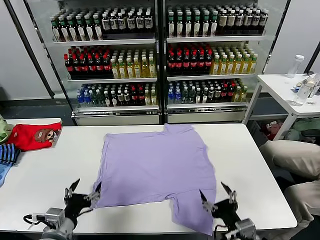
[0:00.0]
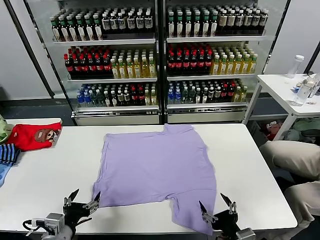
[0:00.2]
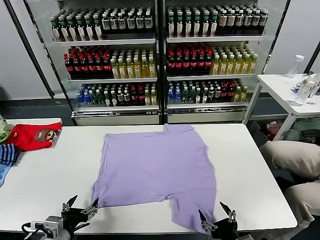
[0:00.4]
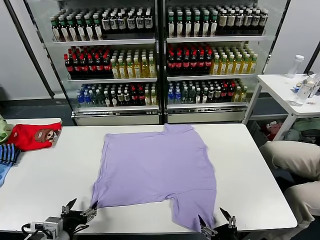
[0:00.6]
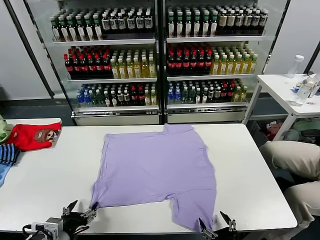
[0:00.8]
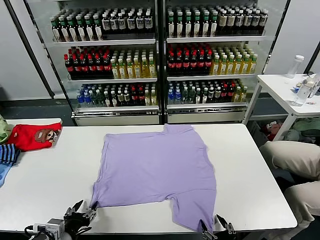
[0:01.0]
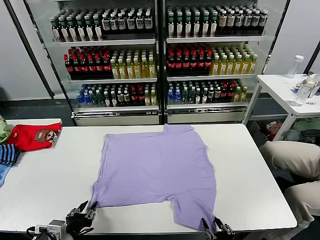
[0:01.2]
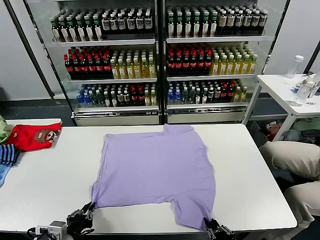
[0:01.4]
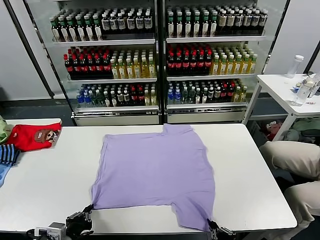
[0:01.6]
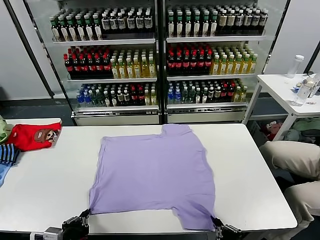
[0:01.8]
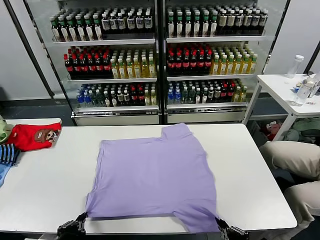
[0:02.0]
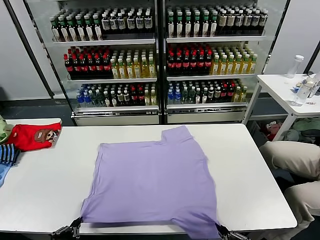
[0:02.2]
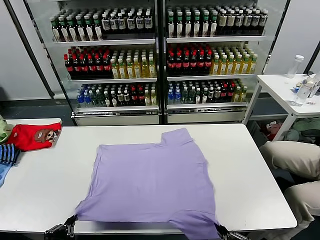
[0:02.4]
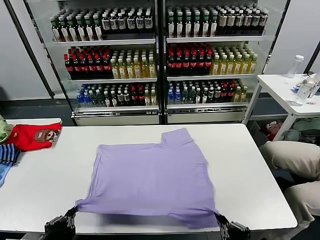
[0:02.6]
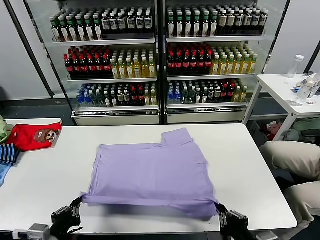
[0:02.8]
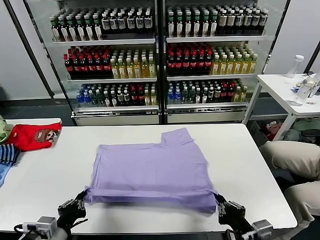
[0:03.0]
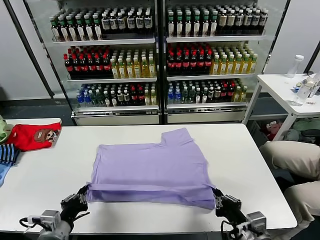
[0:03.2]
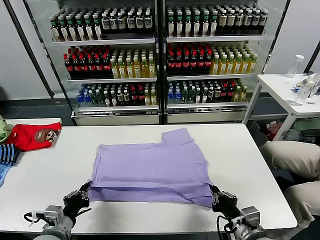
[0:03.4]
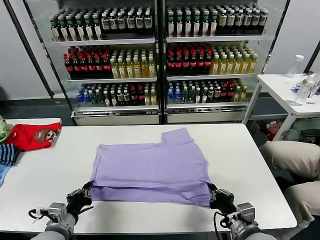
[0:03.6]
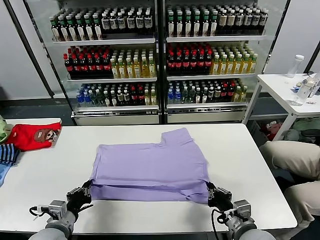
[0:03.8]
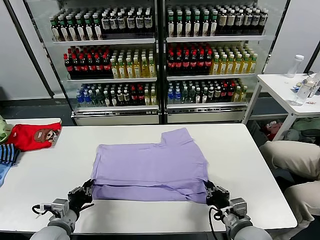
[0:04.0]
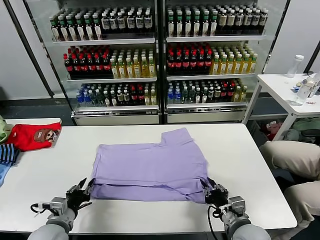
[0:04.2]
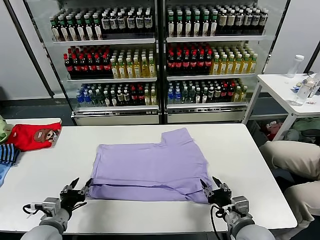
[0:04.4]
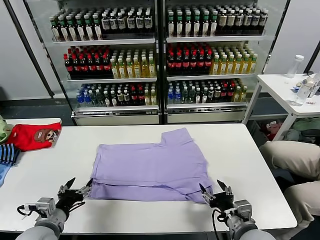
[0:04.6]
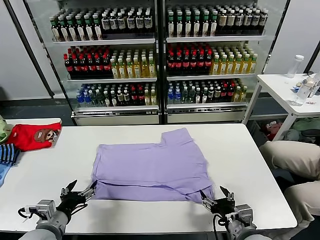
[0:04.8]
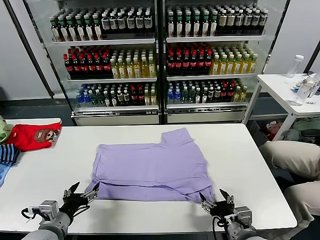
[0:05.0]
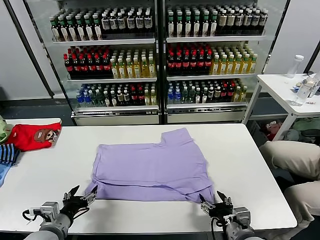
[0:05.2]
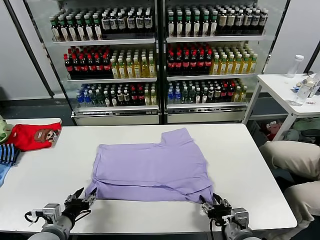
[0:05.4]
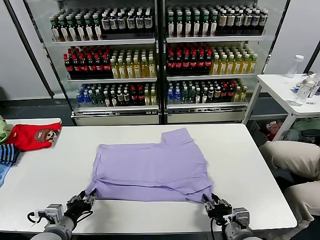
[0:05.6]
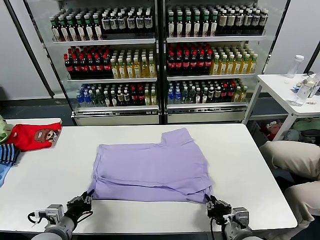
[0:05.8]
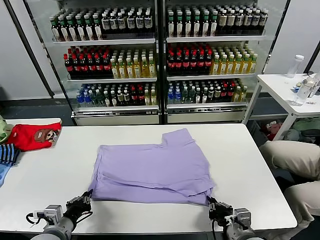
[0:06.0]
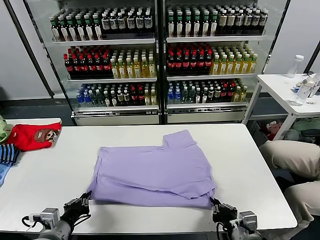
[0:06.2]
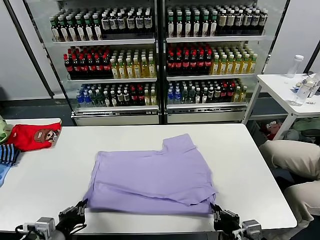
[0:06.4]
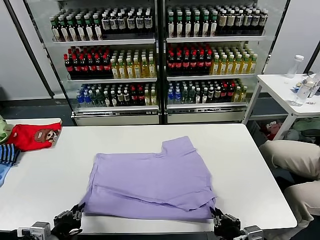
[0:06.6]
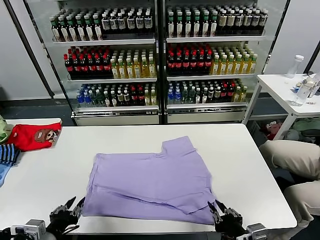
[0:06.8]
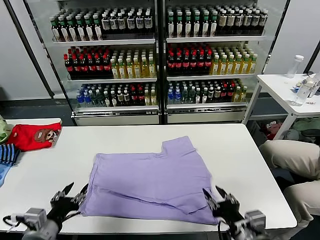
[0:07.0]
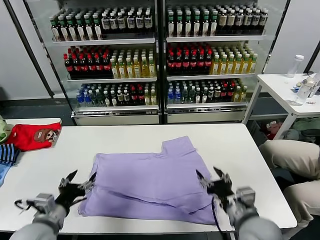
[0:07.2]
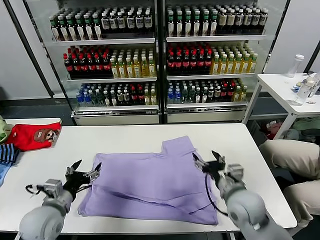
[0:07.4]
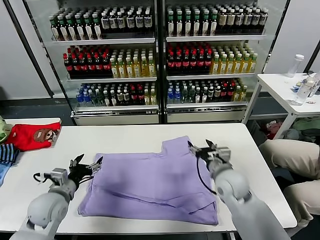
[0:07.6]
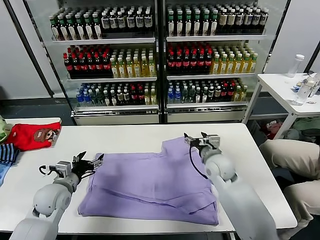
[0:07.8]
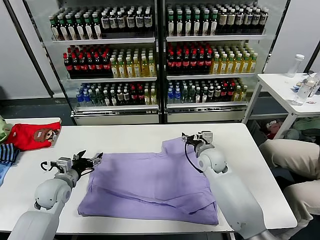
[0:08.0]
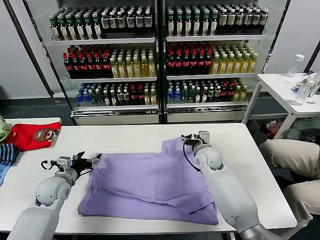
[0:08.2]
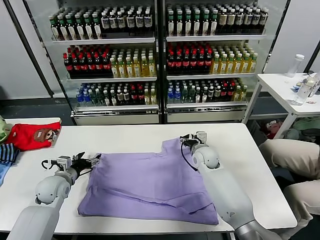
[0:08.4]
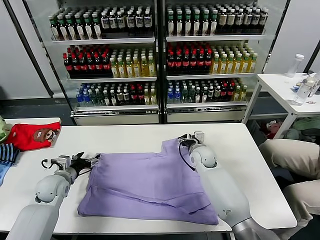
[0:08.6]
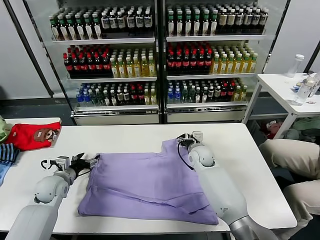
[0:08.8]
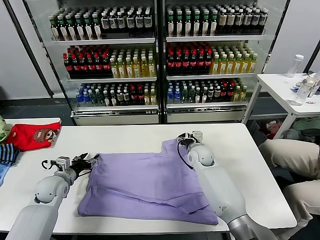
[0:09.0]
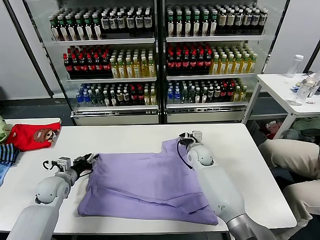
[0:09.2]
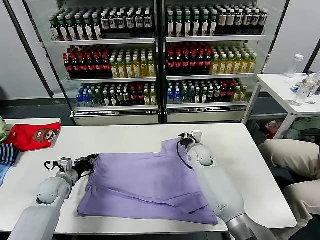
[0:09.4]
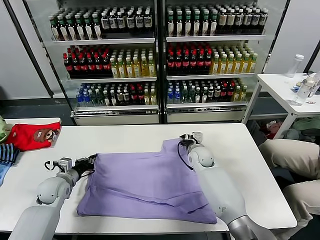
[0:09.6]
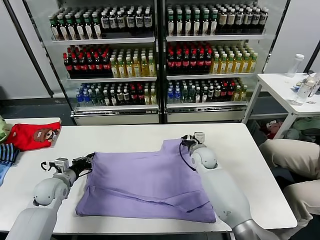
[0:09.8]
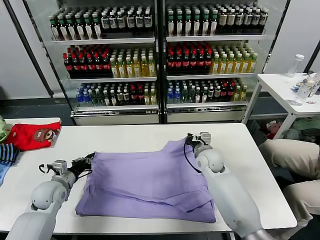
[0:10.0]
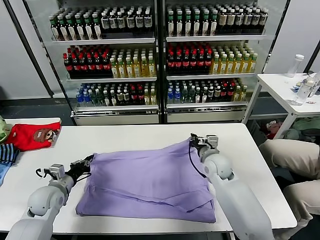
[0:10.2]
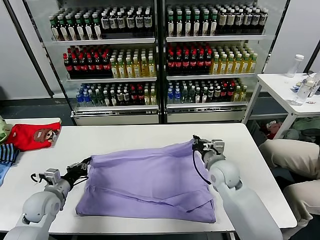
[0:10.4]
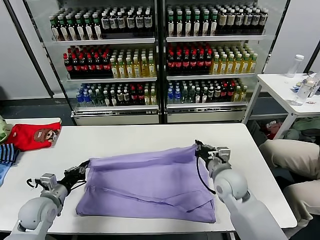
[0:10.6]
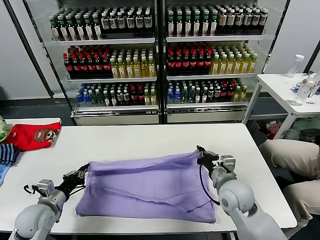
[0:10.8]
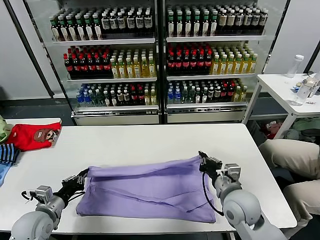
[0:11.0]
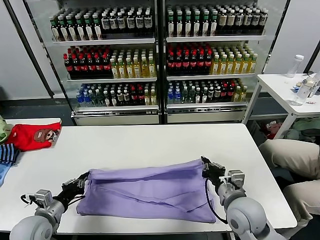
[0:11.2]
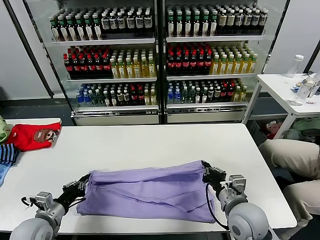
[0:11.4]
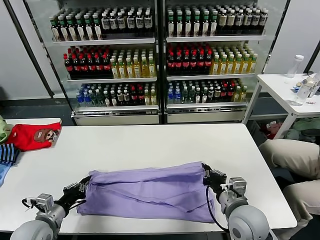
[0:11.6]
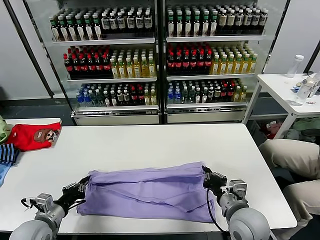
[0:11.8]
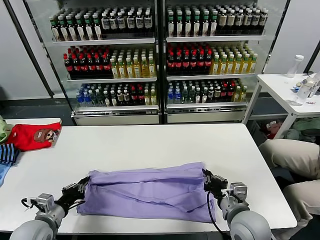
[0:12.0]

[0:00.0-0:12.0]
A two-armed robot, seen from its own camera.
Task of the whole recording: fold and organize the clothes.
Step, 0:00.0 to 0:02.0: use both grippers simultaneously to clamp the lower edge of the clothing fabric.
Step, 0:02.2 to 0:04.4: use both grippers to drag the lower edge of the fabric forward and fold it over the upper edge.
Step, 0:04.6 to 0:07.0: Drag the clothes downward with both gripper.
Step, 0:07.2 to 0:09.8: use both grippers simultaneously to clamp the upper edge of the clothing fabric.
0:01.6 to 0:03.0: The right gripper goes roughly 5 cm forward.
0:03.0 to 0:04.4: Both grippers travel together forward, approximately 5 cm. The right gripper opens its fingers; the left gripper opens its fingers.
0:04.4 to 0:06.0: The right gripper closes; the left gripper closes its fingers.
0:06.0 to 0:07.6: The right gripper is displaced forward by some 20 cm, and opens. Meanwhile the left gripper shifts some 10 cm forward, and opens.
0:07.6 to 0:09.0: The left gripper shifts approximately 10 cm forward and to the left. Meanwhile the right gripper heads forward and downward, covering about 15 cm.
0:09.0 to 0:10.4: The left gripper moves backward, roughly 5 cm, and closes, while the right gripper shifts roughly 15 cm backward, to the right and upward, and closes up.
0:10.4 to 0:12.0: The right gripper goes about 15 cm backward. The left gripper moves backward, roughly 10 cm.

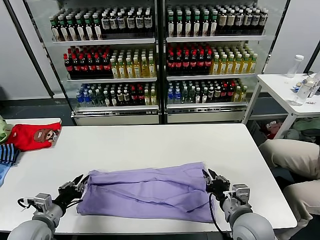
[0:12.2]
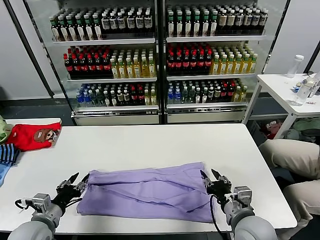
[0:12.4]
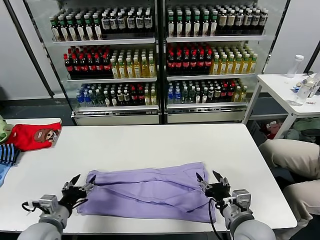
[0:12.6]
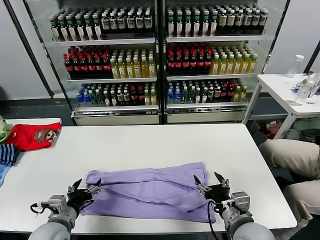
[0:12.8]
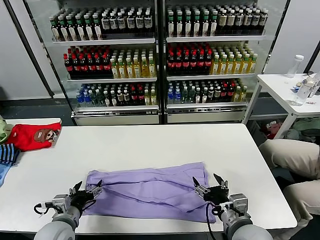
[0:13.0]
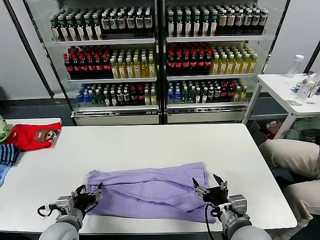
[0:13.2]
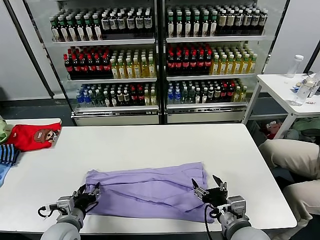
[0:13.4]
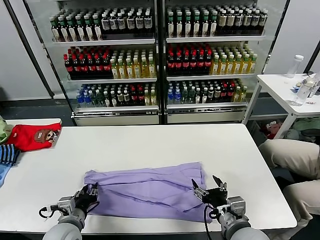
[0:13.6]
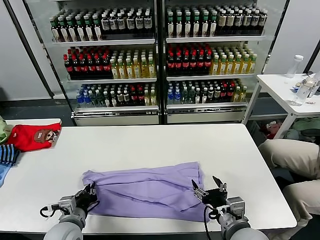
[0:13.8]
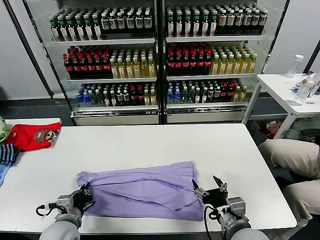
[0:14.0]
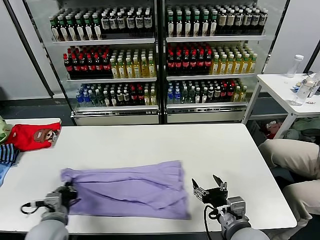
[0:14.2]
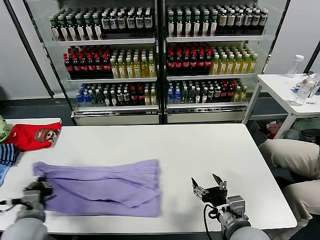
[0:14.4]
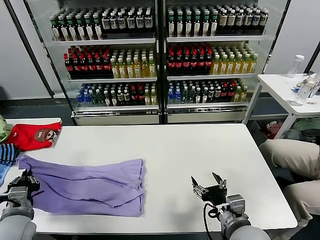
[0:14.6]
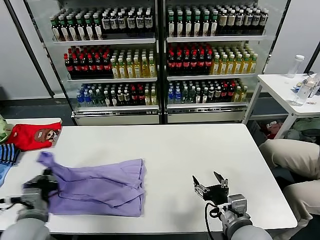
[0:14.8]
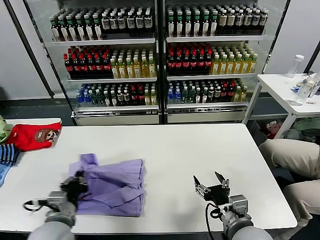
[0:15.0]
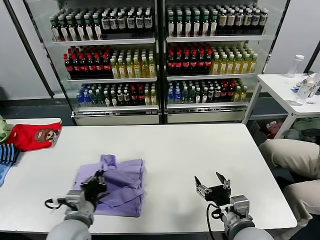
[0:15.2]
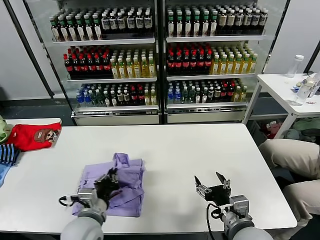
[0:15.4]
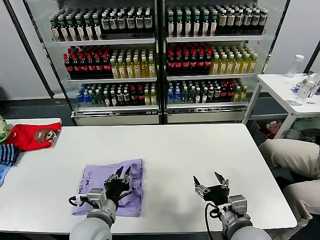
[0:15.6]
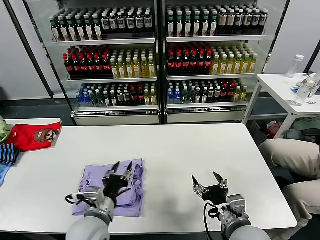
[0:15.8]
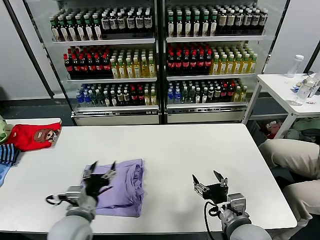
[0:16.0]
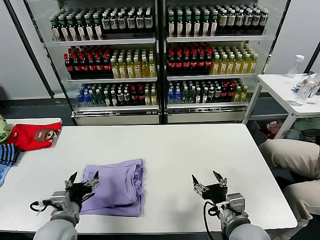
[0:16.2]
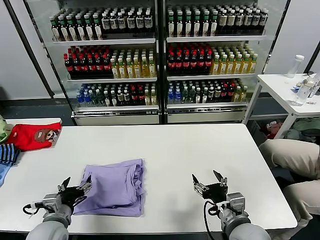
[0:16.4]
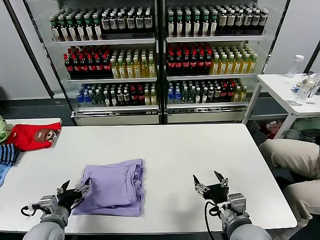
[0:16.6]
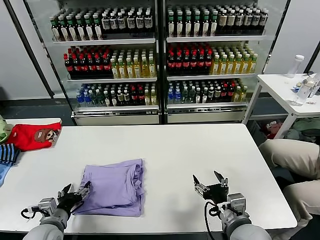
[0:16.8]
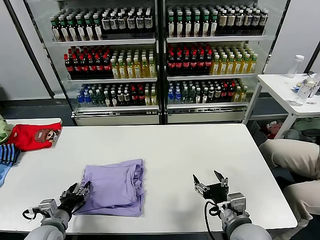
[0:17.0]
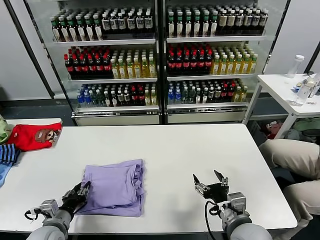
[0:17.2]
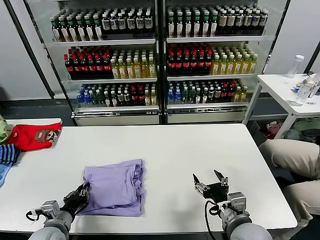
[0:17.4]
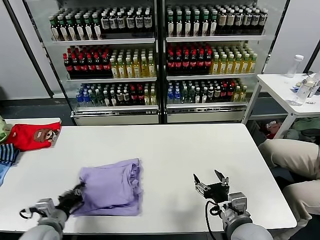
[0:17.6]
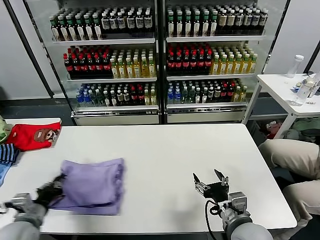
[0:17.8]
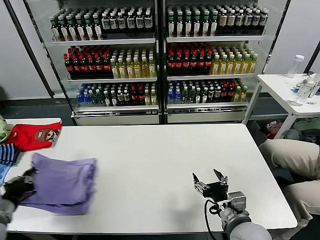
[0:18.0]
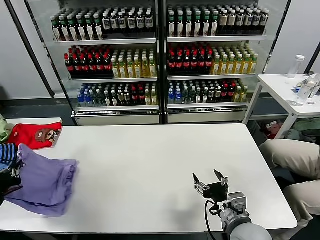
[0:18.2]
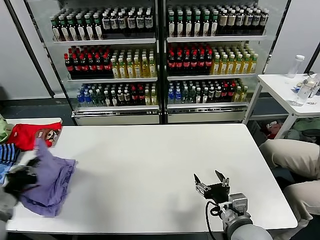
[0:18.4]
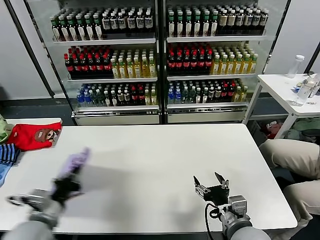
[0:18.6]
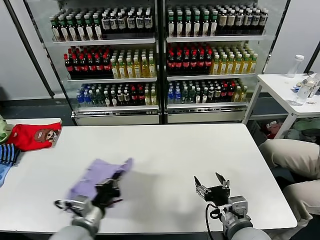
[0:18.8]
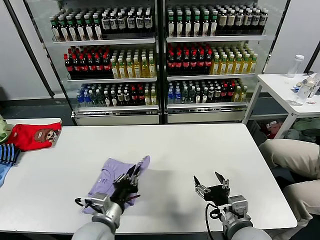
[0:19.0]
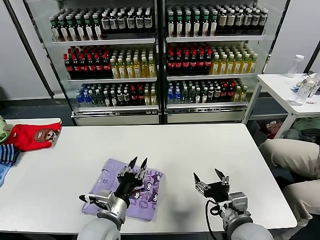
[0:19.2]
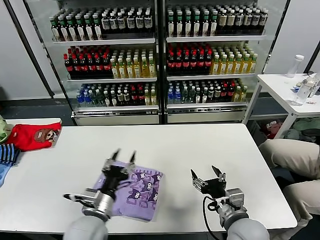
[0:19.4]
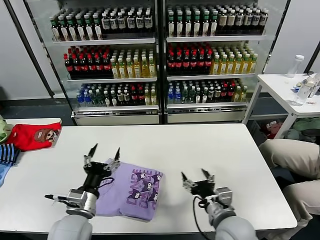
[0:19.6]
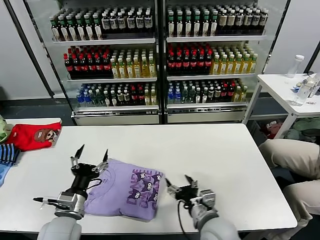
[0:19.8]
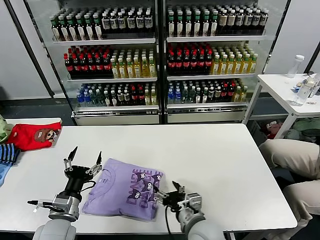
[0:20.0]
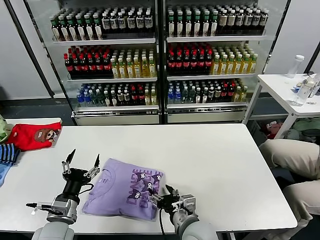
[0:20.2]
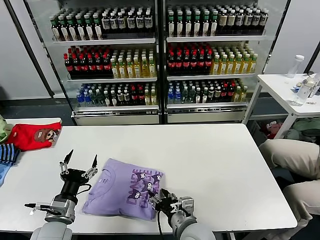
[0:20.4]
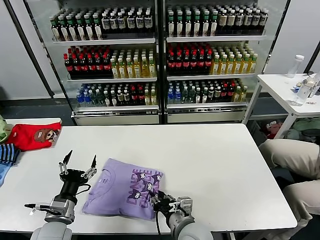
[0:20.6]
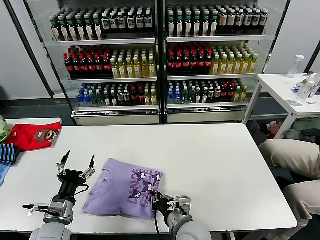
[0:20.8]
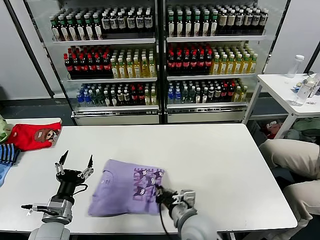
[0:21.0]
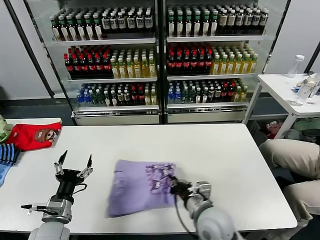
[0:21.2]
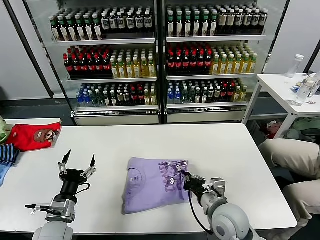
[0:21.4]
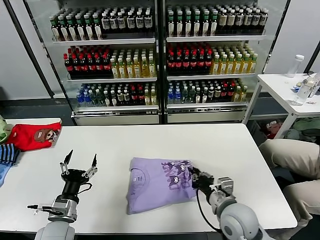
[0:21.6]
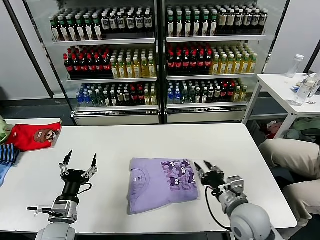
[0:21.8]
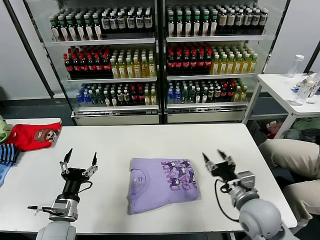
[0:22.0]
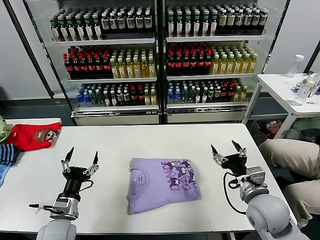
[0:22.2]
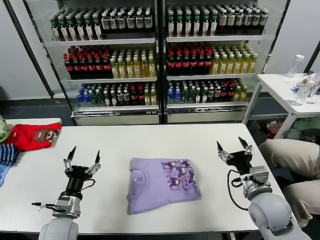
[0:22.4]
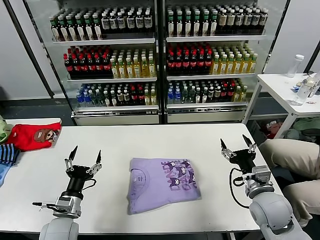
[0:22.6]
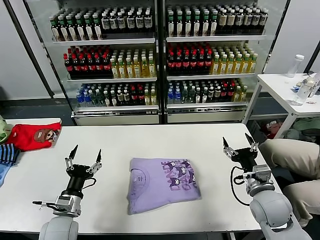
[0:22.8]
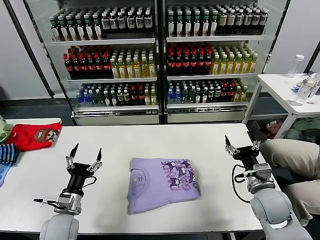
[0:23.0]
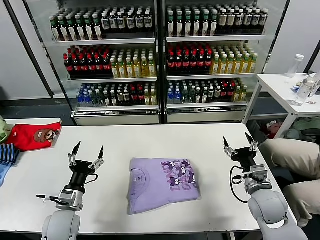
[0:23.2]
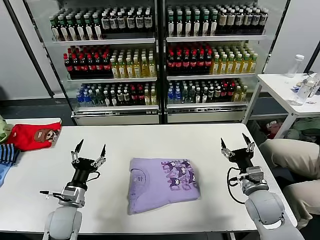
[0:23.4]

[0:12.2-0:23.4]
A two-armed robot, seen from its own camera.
Task of the whole recording: fold and organize the clothes.
Step, 0:12.8 to 0:14.0: use the left gripper to clamp the left edge of the fabric.
Step, 0:14.2 to 0:16.0: use the left gripper to drag the left edge of the fabric to the left and folds it over the right edge.
Step, 0:16.2 to 0:19.4: Flip the folded clothes over with left gripper.
Step, 0:19.6 to 0:22.0: Drag the clothes to the center of the table.
0:12.2 to 0:13.8: The right gripper opens its fingers; the left gripper heads to the right, covering approximately 10 cm, and opens, then closes again.
0:13.8 to 0:15.4: The left gripper shifts roughly 10 cm to the right and upward.
0:15.4 to 0:17.0: The left gripper goes some 15 cm to the left and downward, and opens up.
0:17.0 to 0:18.6: The left gripper moves upward, roughly 10 cm, and closes.
0:18.6 to 0:20.2: The left gripper goes about 5 cm downward, travels to the right and back again, about 20 cm each way, and opens its fingers, while the right gripper heads to the left, covering roughly 10 cm.
0:20.2 to 0:21.8: The right gripper goes roughly 10 cm to the right, and closes its fingers.
0:21.8 to 0:23.4: The right gripper travels to the right by some 10 cm, and opens.
